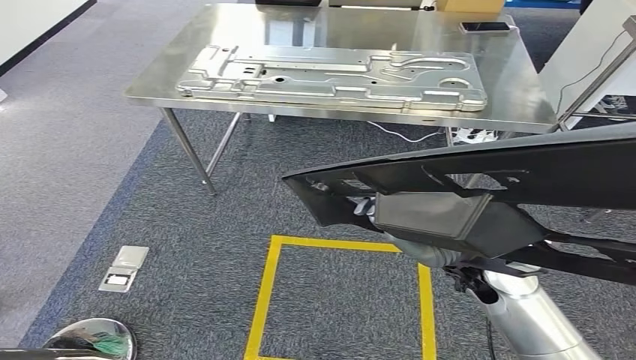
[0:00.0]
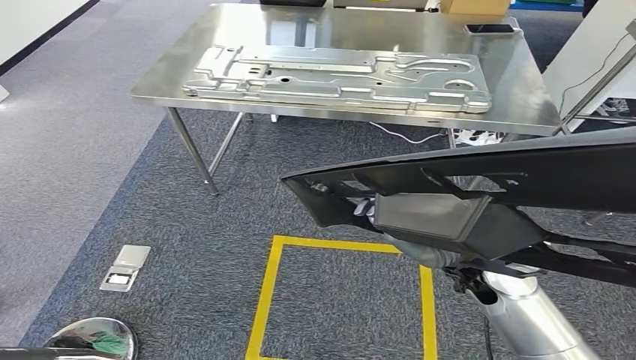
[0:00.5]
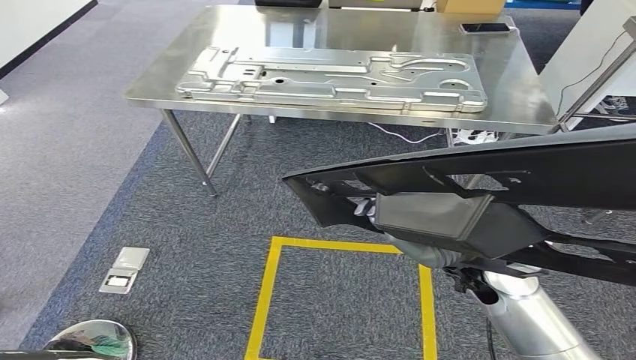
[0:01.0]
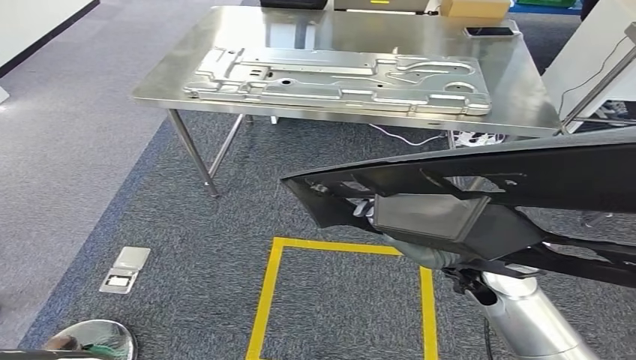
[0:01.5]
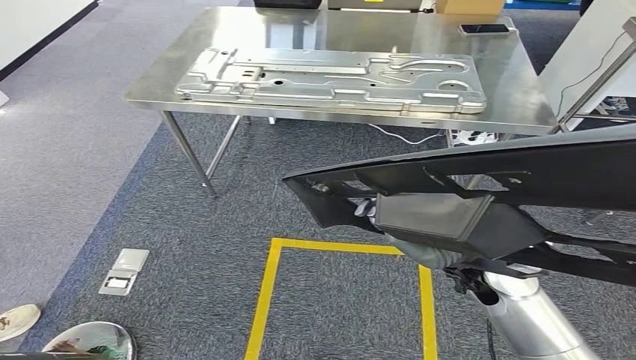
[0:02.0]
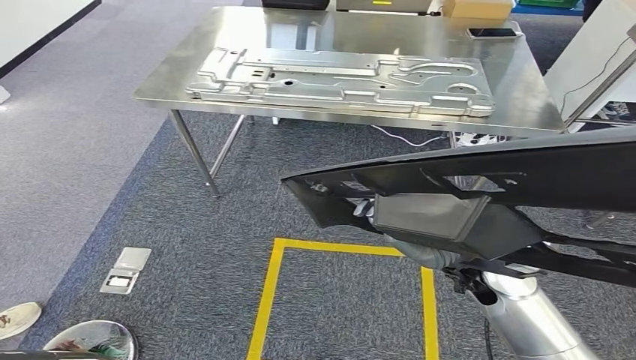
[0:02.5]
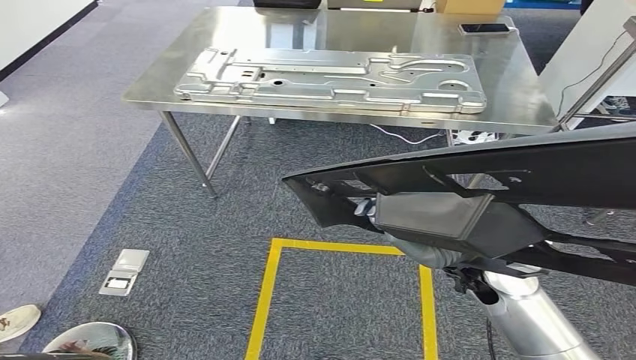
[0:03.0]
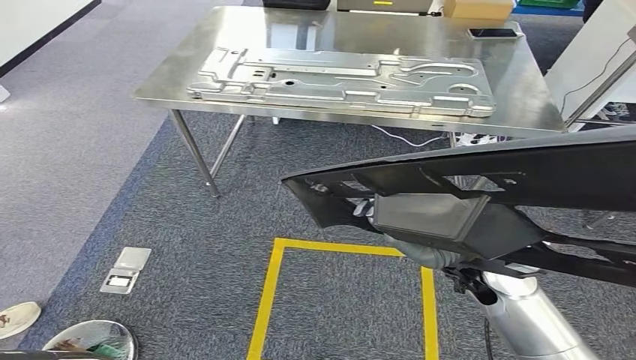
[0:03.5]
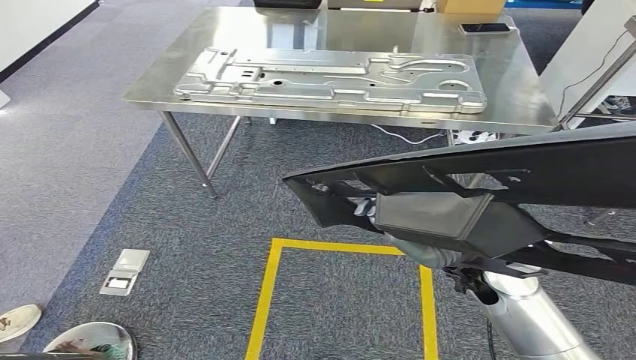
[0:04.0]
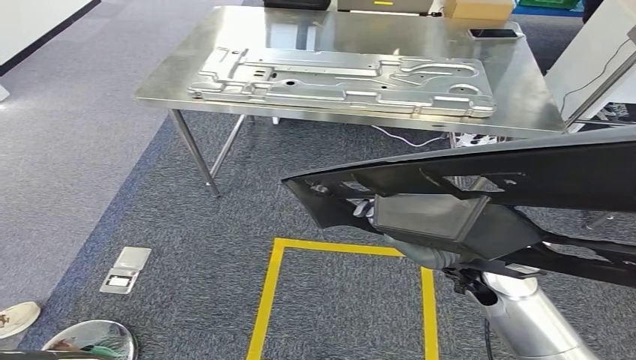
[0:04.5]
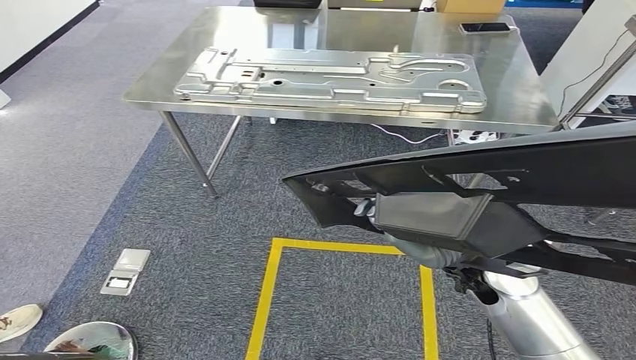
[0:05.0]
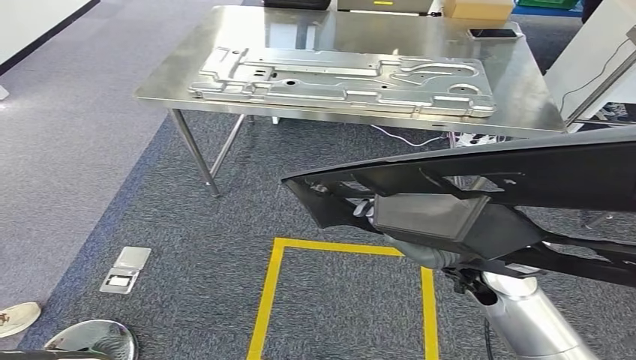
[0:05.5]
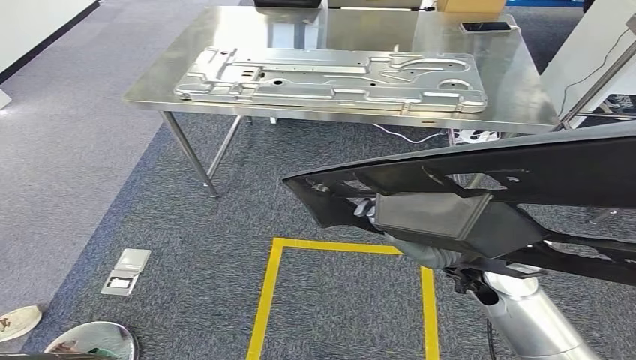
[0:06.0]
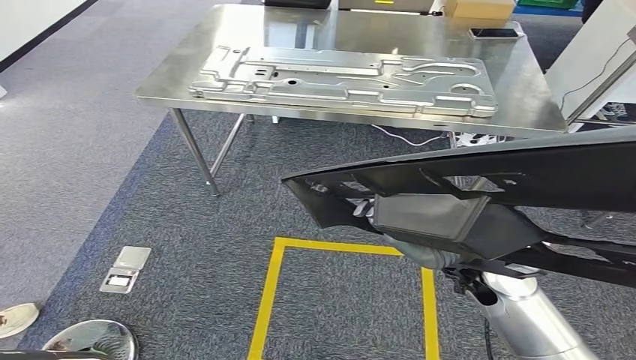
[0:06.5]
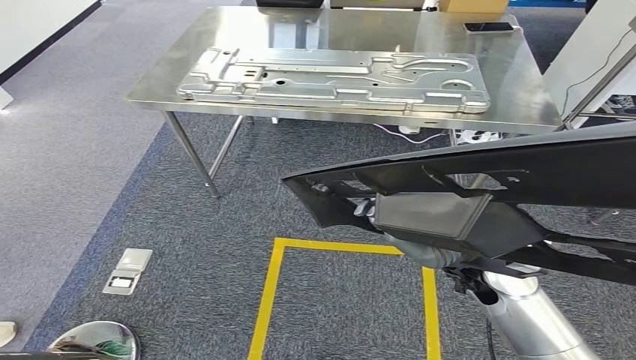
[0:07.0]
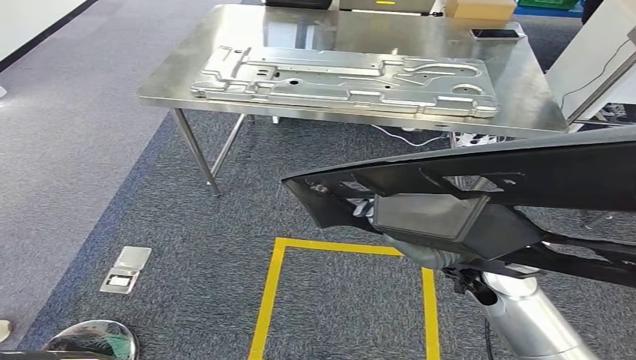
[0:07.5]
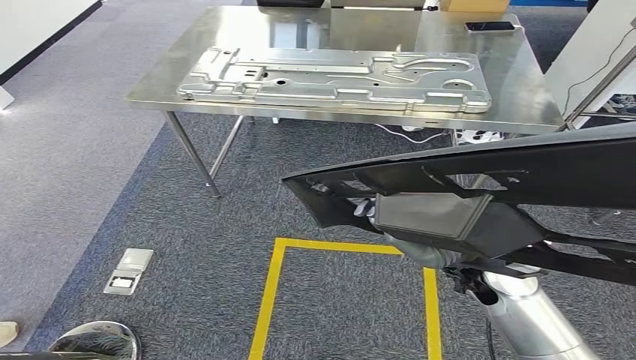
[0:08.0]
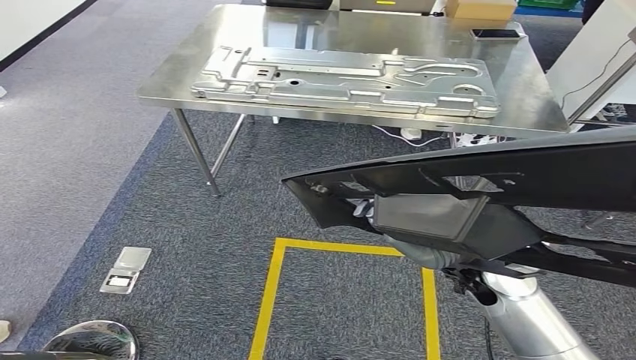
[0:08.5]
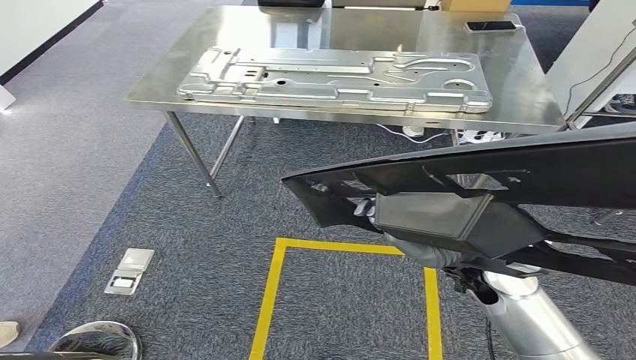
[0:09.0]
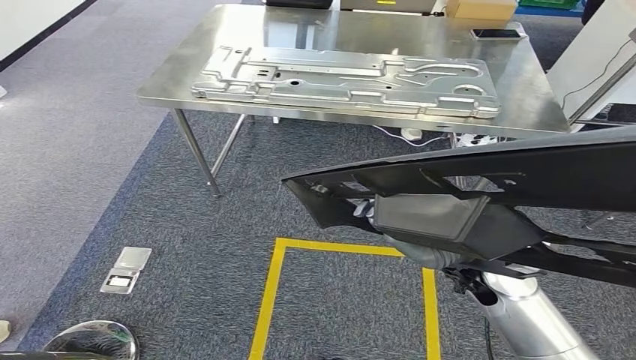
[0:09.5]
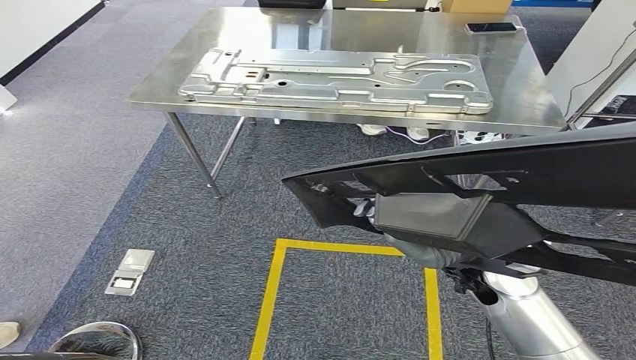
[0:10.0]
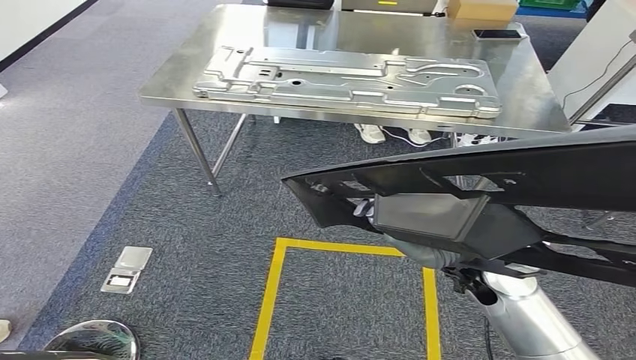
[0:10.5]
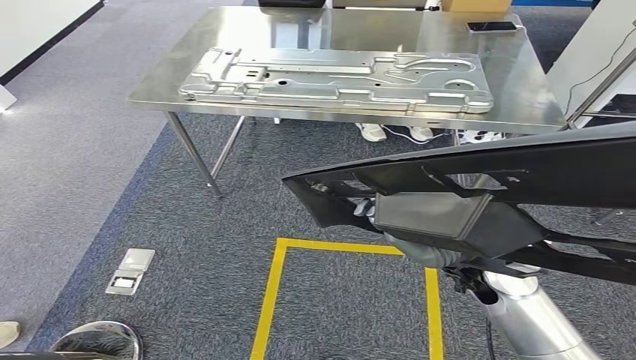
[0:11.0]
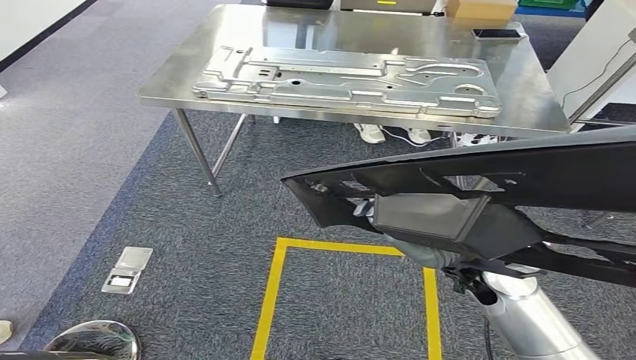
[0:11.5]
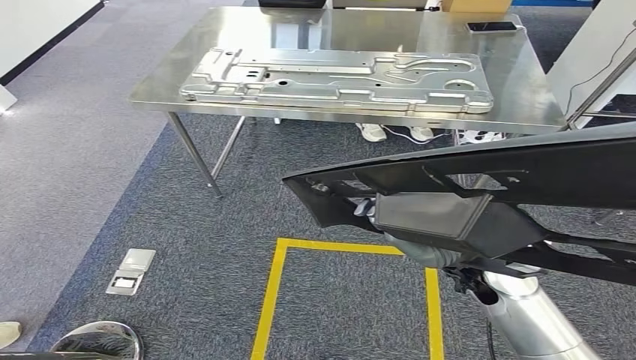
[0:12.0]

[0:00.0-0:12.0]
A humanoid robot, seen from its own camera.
0:00.0 to 0:12.0: Neither hand changes place.

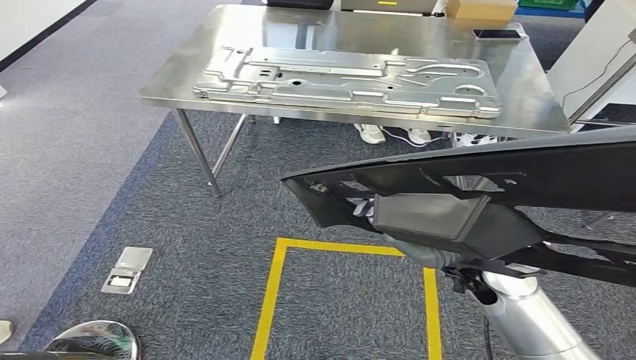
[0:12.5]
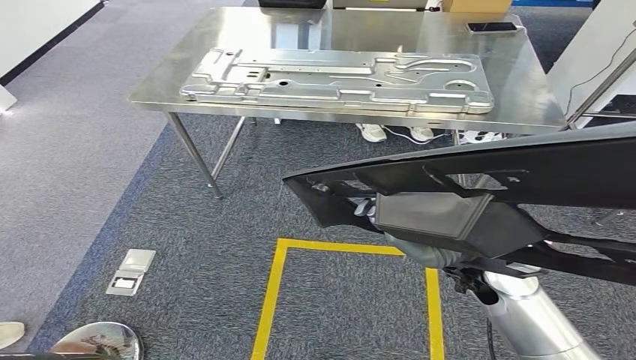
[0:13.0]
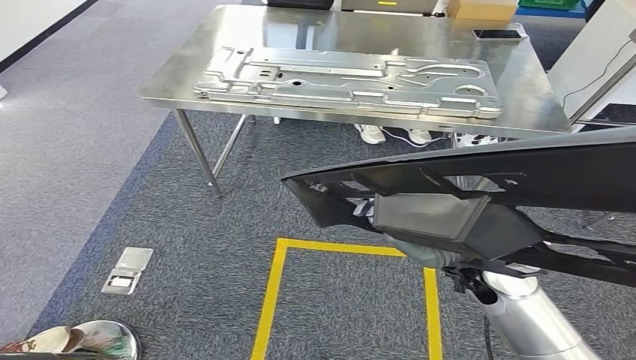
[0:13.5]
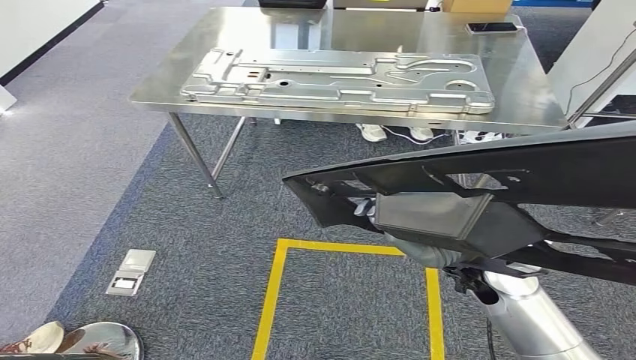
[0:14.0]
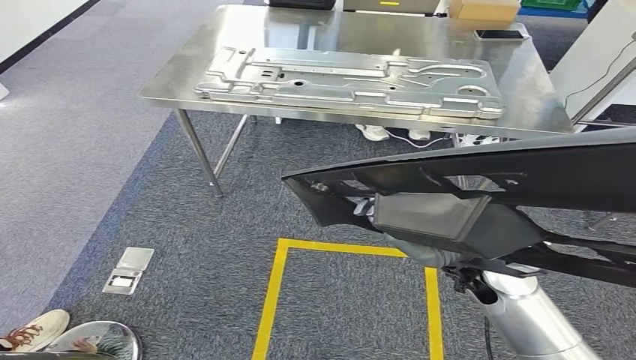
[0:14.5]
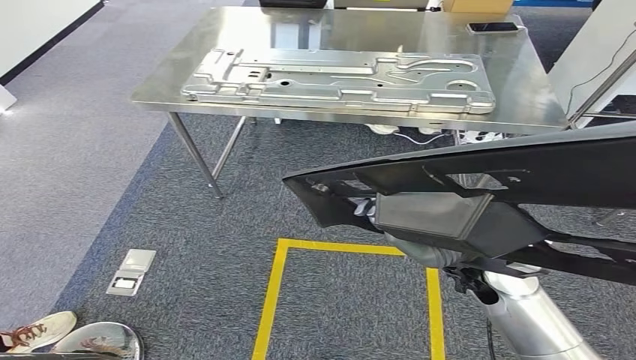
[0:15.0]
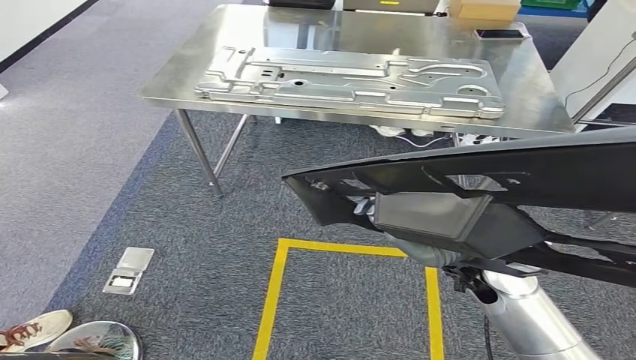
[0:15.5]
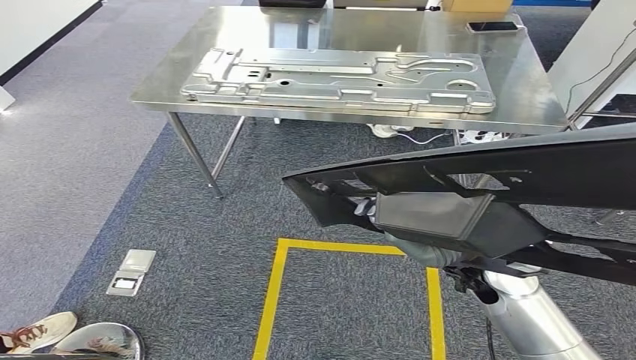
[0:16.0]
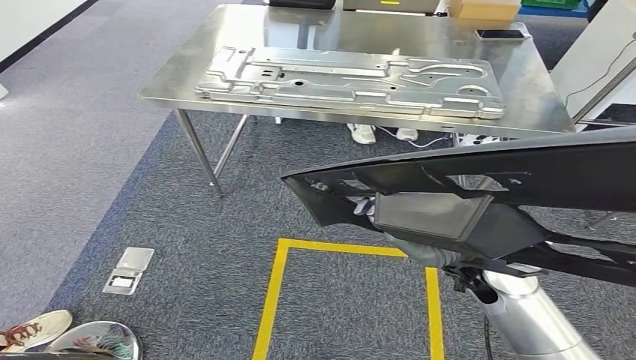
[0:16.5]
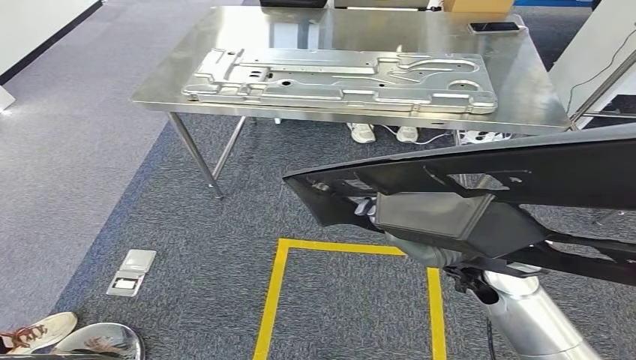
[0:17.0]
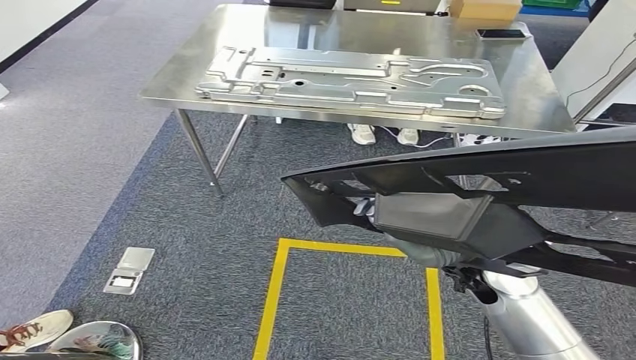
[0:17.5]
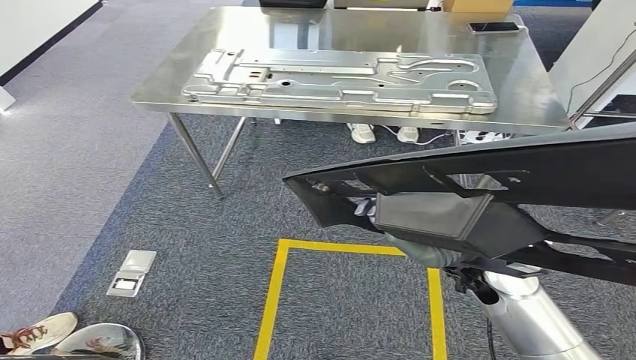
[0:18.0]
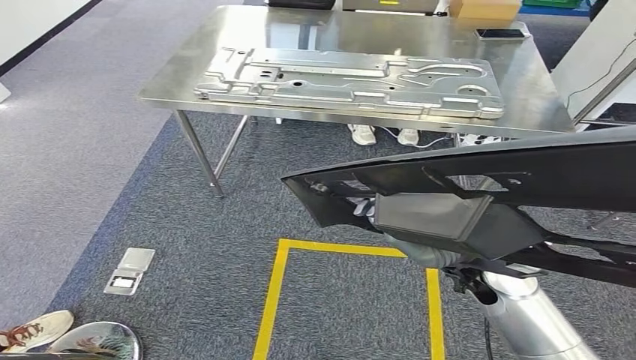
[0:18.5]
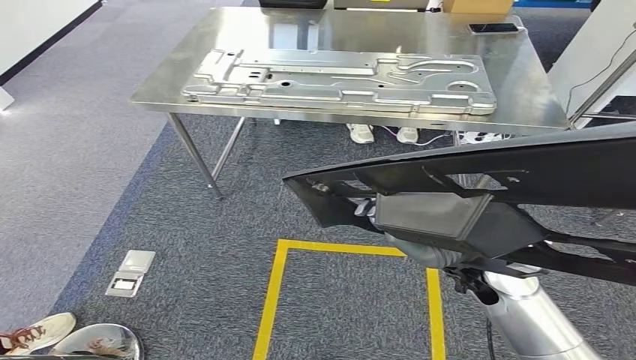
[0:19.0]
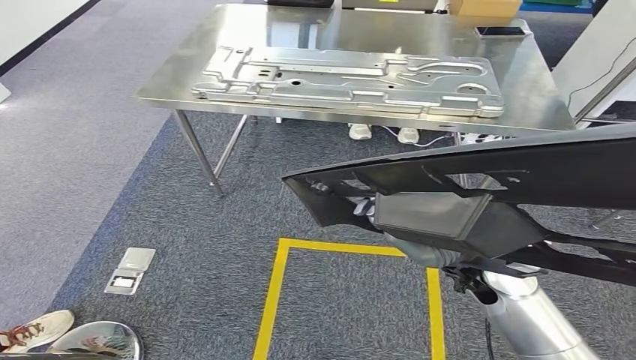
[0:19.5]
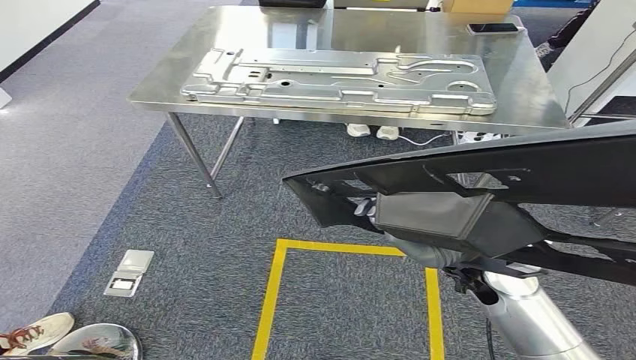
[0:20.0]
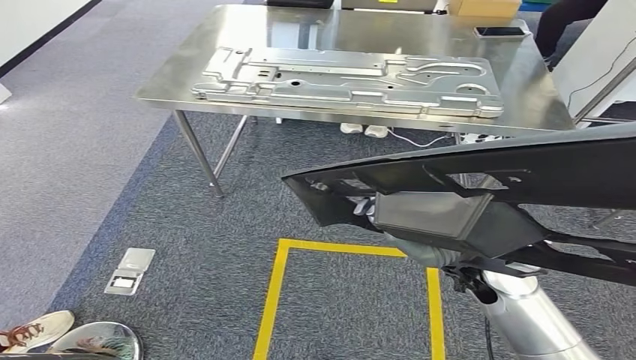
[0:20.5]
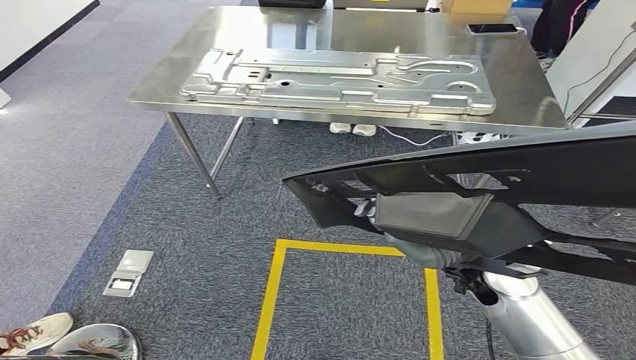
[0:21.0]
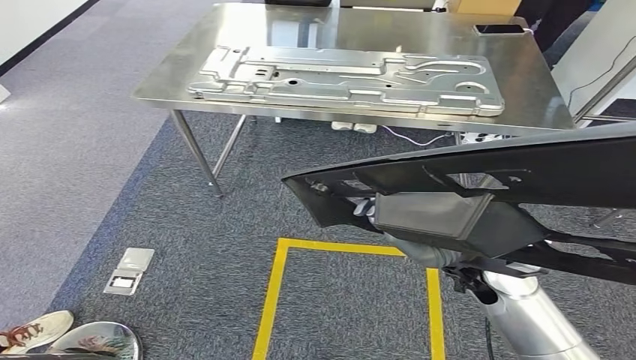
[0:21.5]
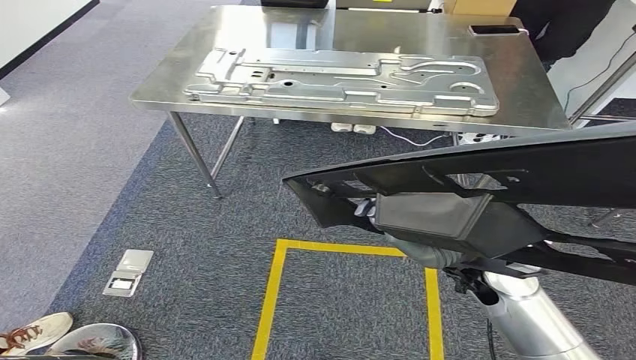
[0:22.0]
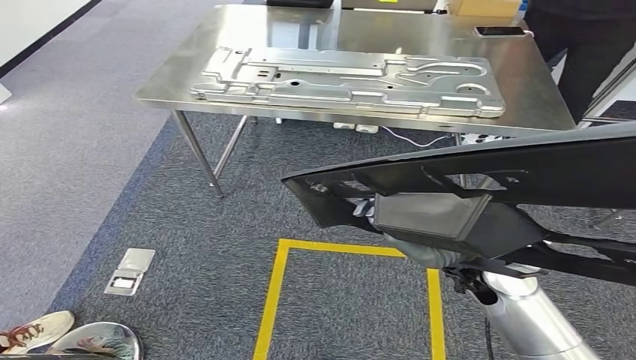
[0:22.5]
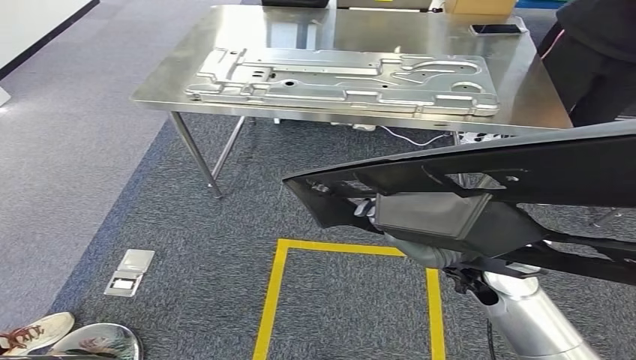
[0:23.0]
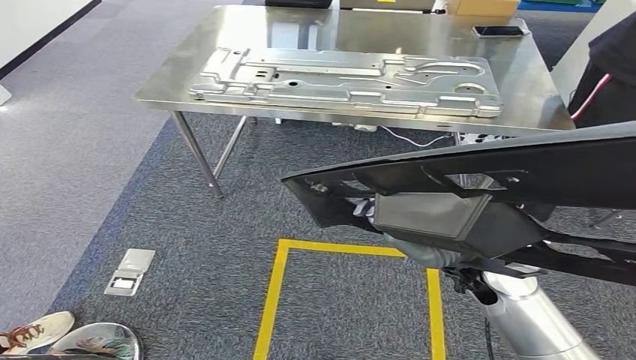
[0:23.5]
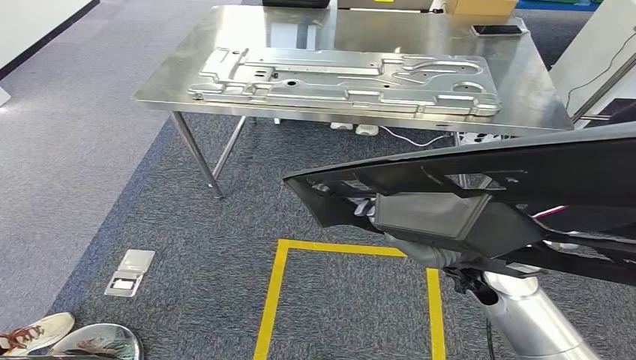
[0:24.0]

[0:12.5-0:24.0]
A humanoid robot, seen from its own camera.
0:12.5 to 0:24.0: Both hands stay about where they are.
